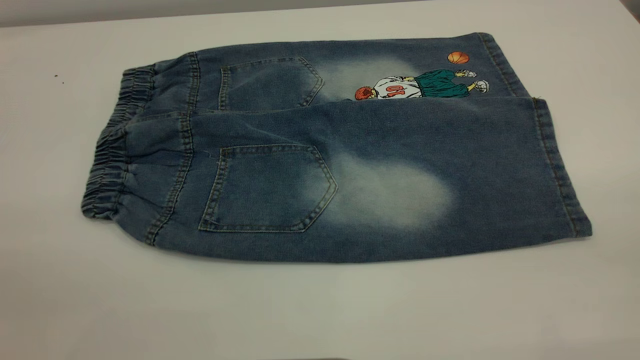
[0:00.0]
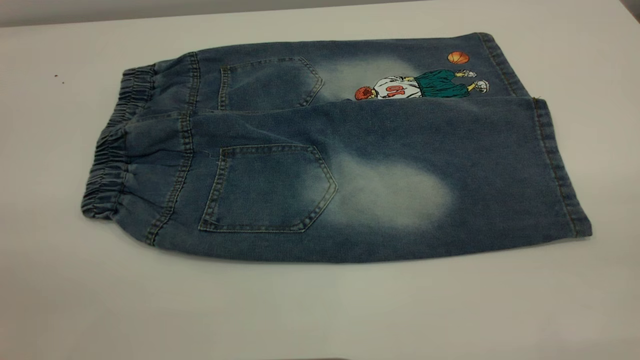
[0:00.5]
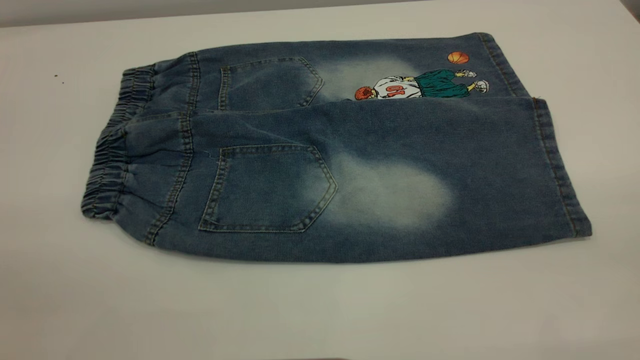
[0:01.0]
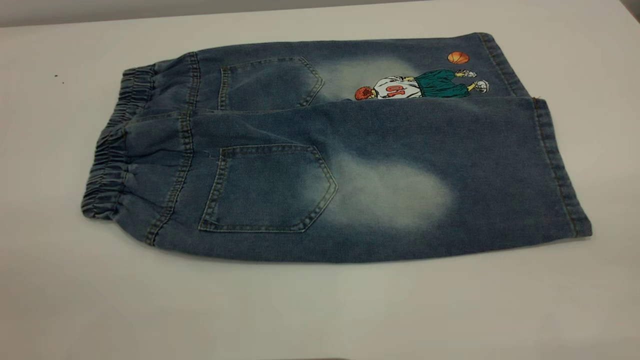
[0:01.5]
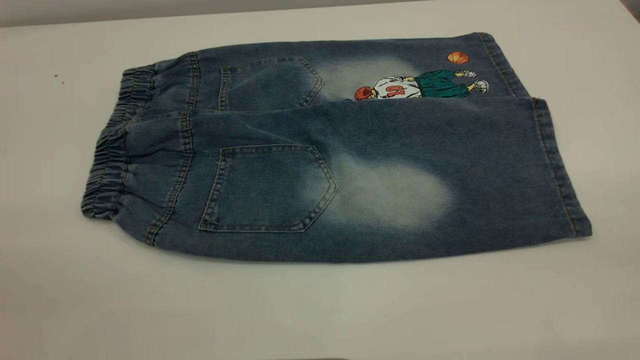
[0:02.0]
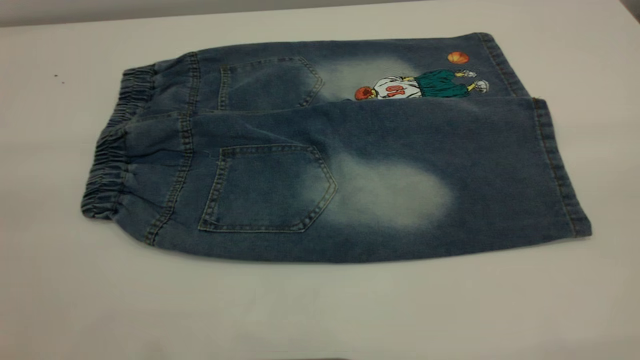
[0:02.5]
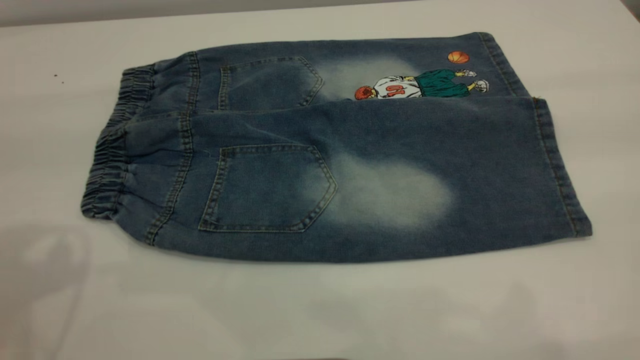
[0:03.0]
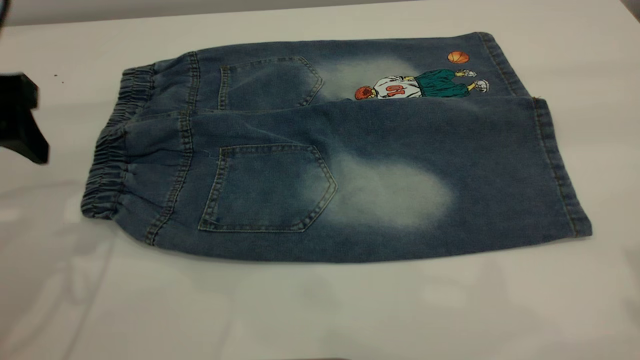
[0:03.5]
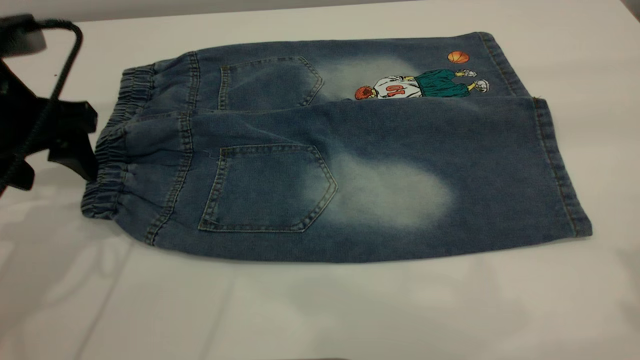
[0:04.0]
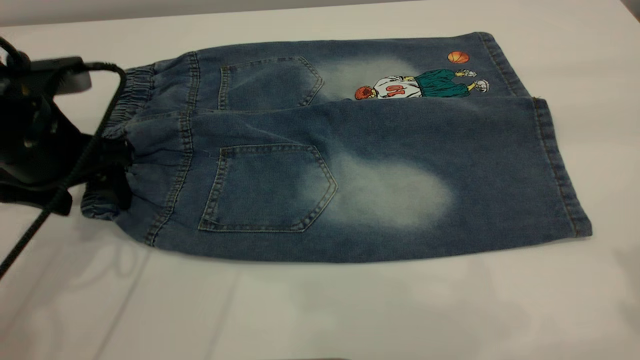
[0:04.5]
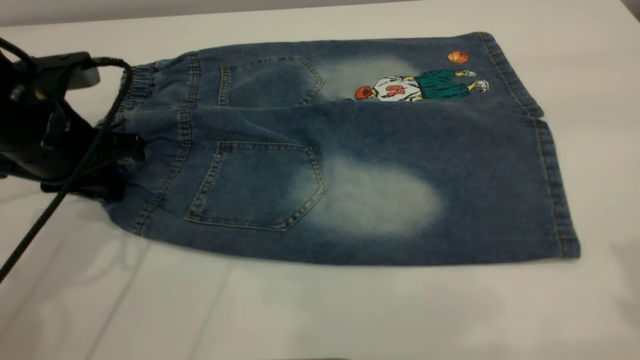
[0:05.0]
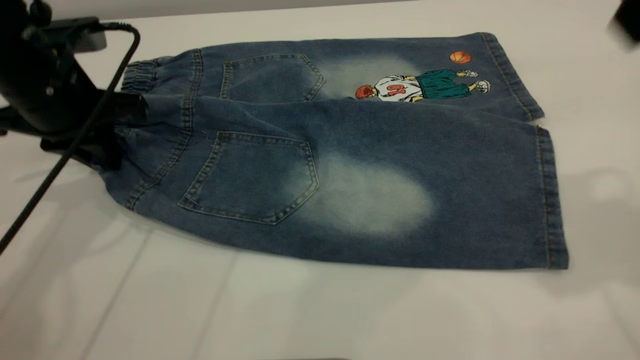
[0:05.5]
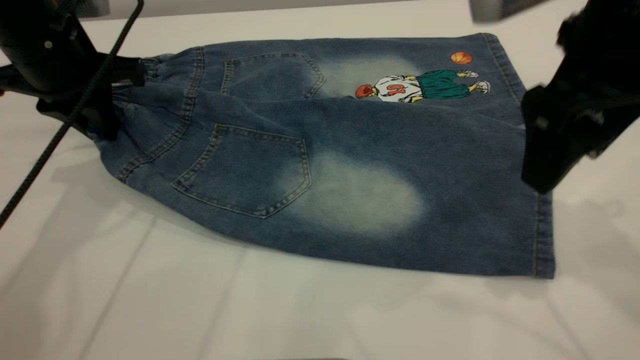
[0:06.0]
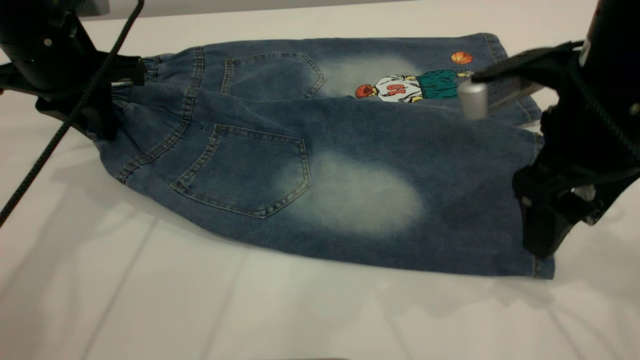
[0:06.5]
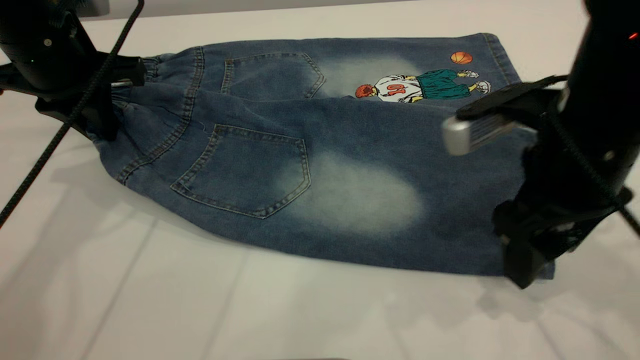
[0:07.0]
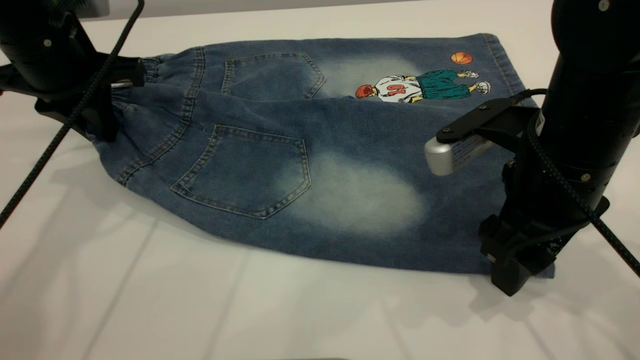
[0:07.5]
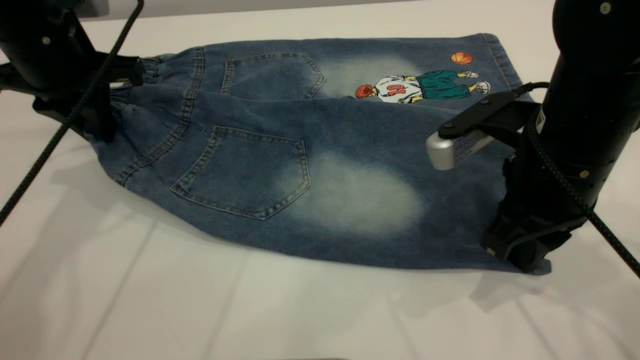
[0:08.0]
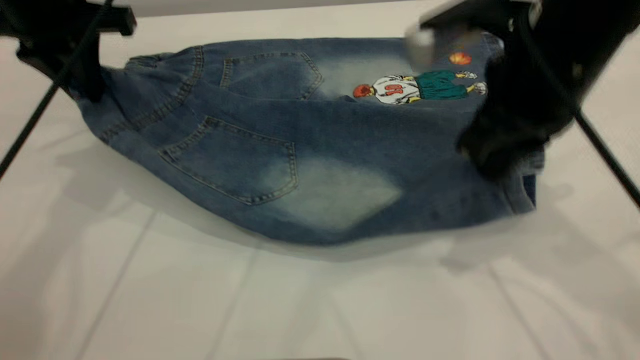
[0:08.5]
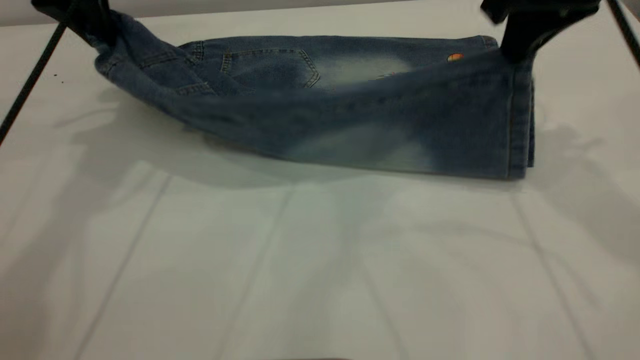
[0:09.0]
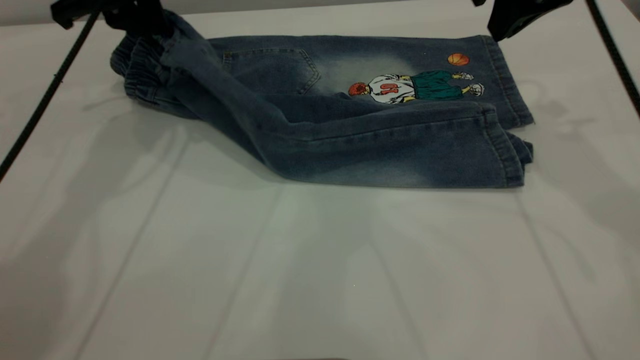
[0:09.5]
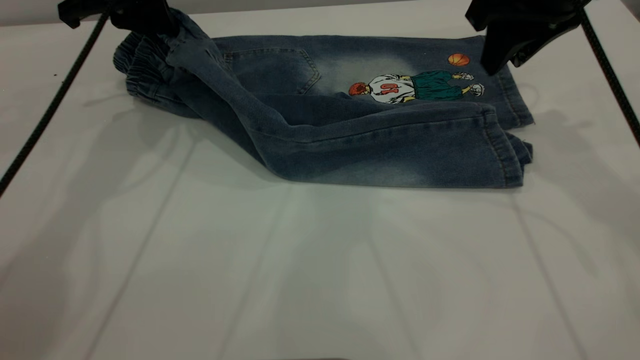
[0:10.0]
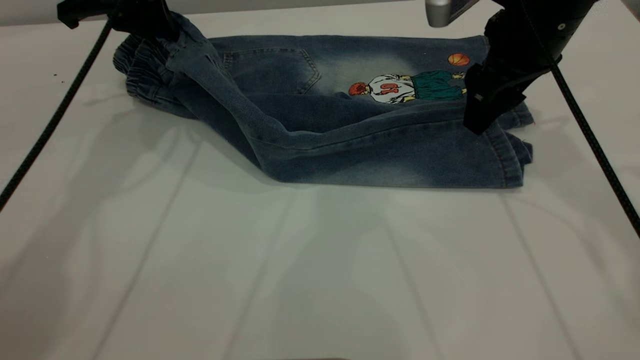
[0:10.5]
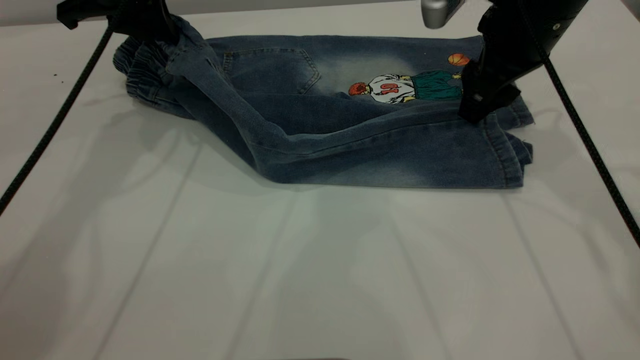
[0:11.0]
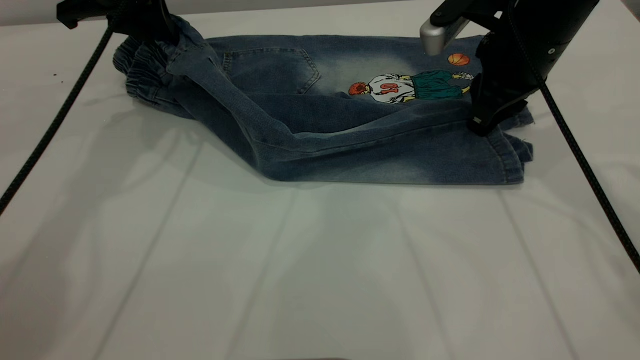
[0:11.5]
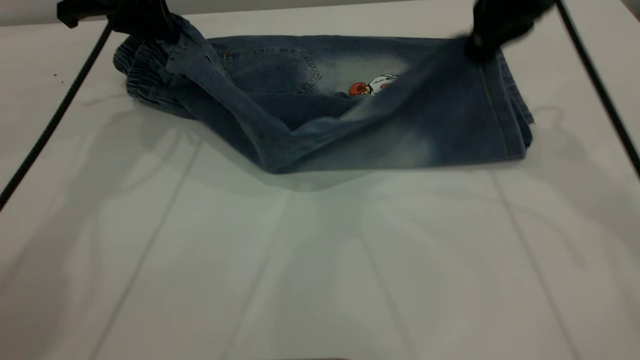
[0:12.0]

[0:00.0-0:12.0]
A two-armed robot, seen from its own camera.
0:00.0 to 0:02.0: The two grippers keep their place.
0:02.0 to 0:04.0: The left gripper moves forward and downward, some 35 cm.
0:04.0 to 0:06.0: The right gripper travels downward, forward and to the left by approximately 20 cm, while the left gripper goes roughly 10 cm forward, and closes its fingers.
0:06.0 to 0:08.0: The right gripper travels downward by about 10 cm, and closes up.
0:08.0 to 0:10.0: The right gripper shifts approximately 15 cm forward and upward, and opens its fingers. Meanwhile the left gripper heads forward, covering approximately 10 cm.
0:10.0 to 0:12.0: The right gripper moves some 5 cm downward and comes back, and closes up.

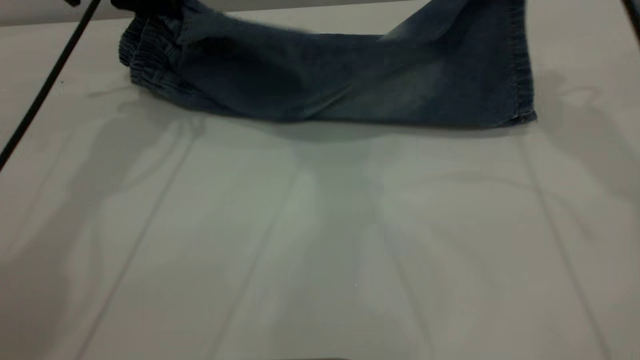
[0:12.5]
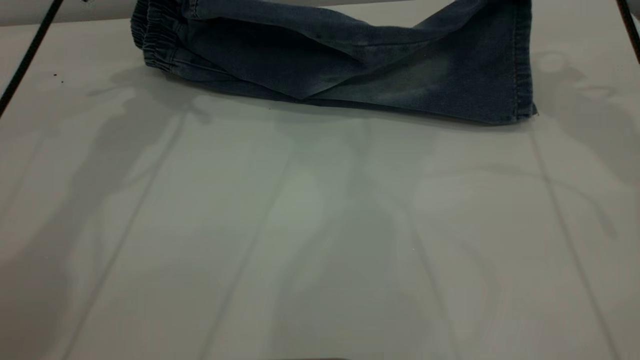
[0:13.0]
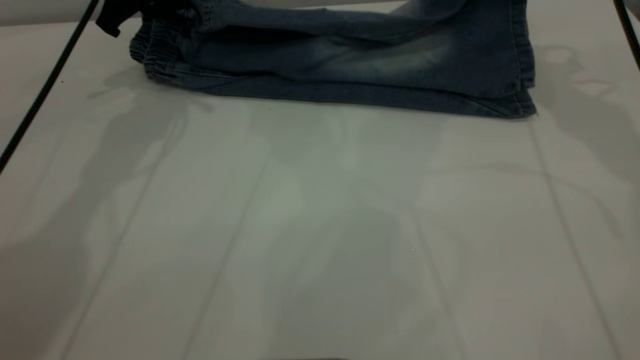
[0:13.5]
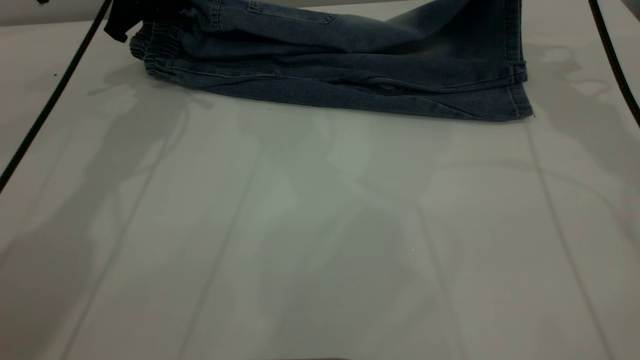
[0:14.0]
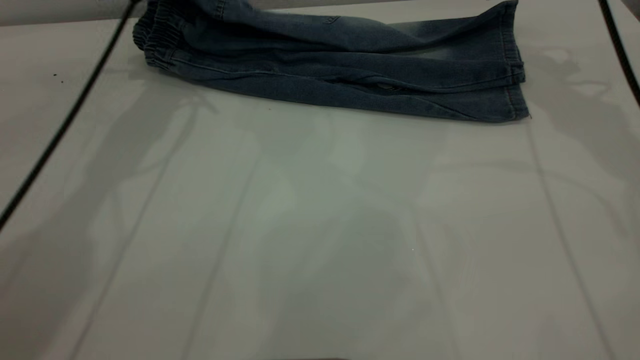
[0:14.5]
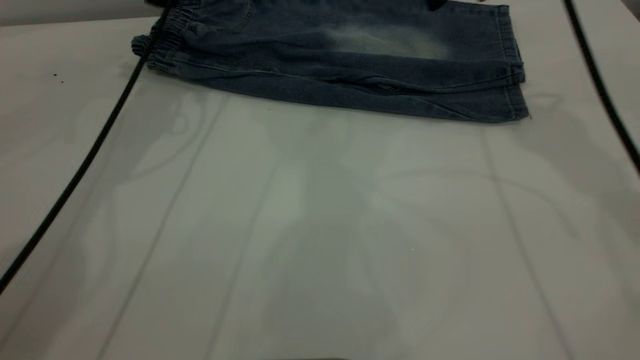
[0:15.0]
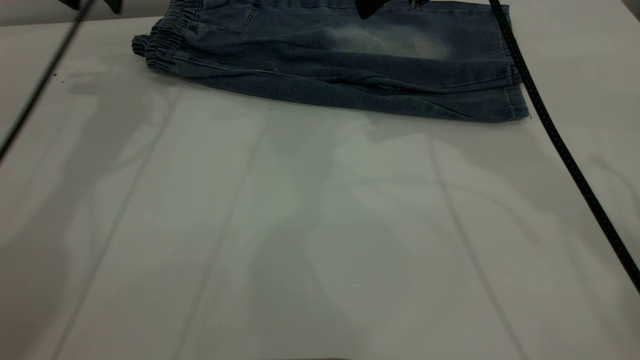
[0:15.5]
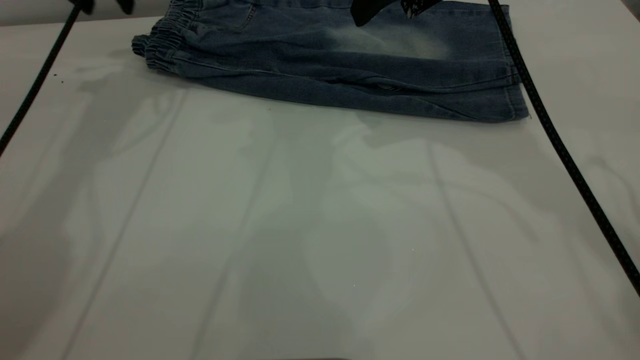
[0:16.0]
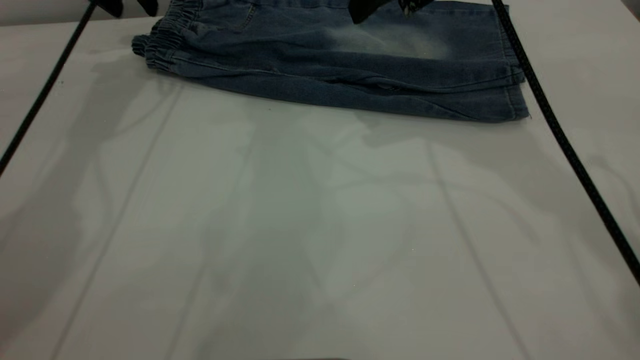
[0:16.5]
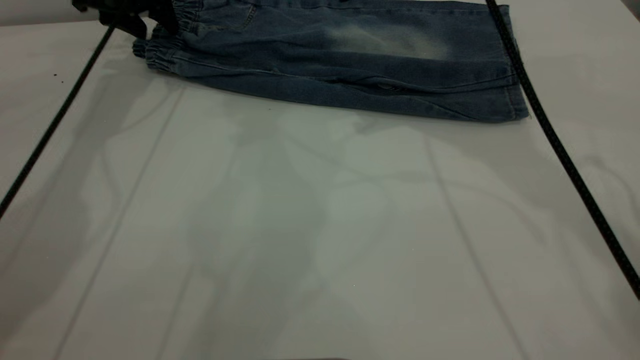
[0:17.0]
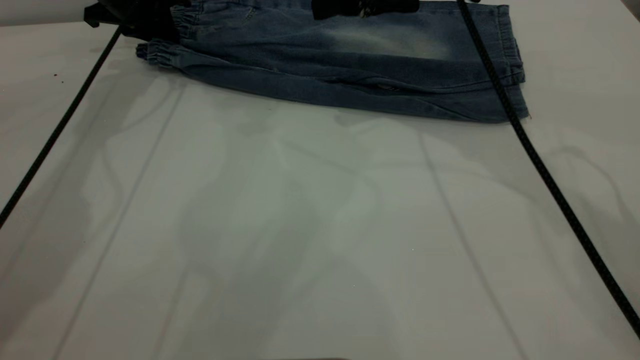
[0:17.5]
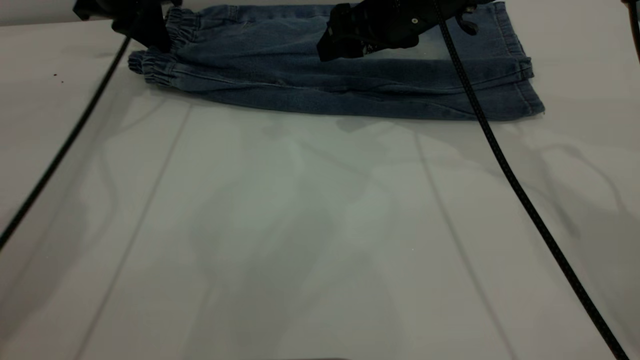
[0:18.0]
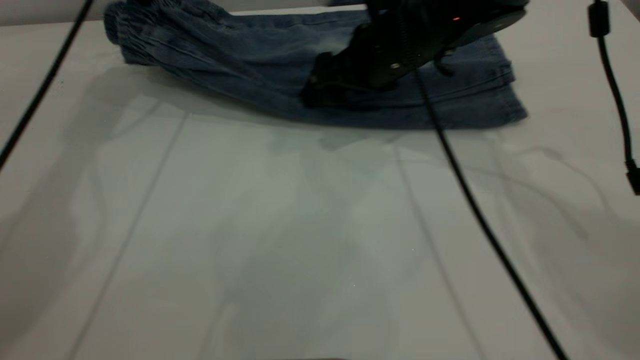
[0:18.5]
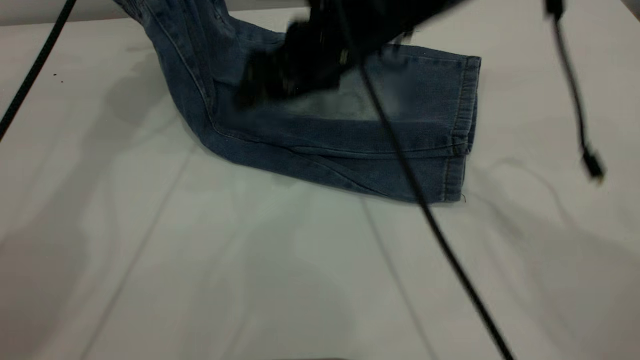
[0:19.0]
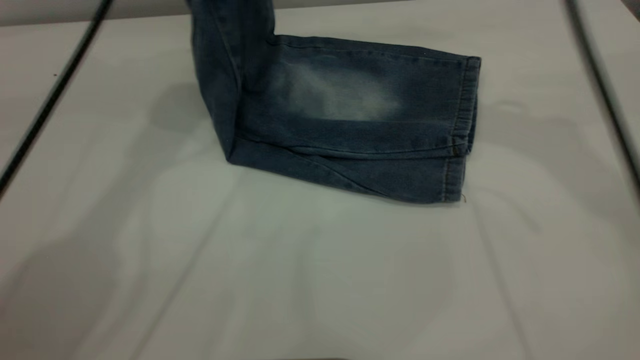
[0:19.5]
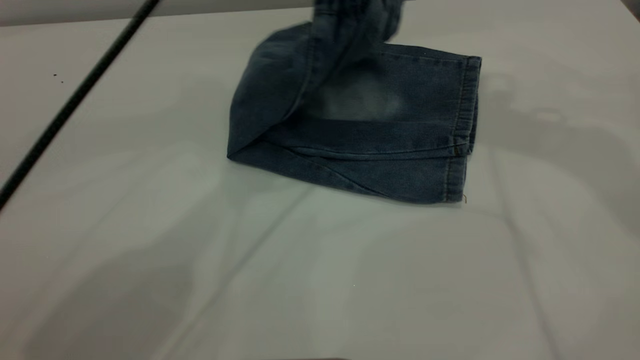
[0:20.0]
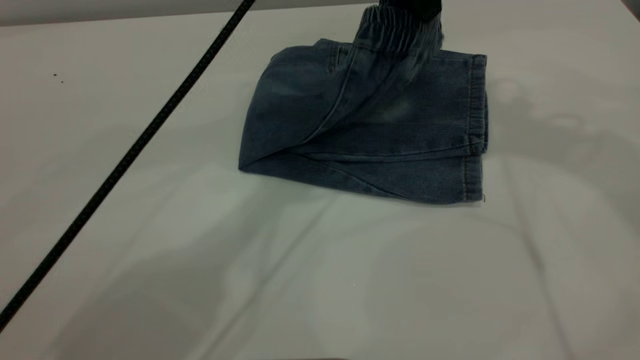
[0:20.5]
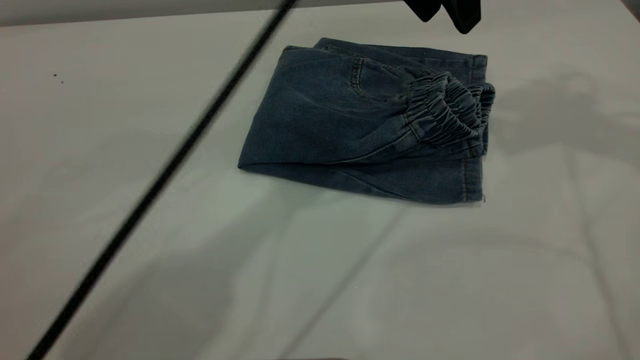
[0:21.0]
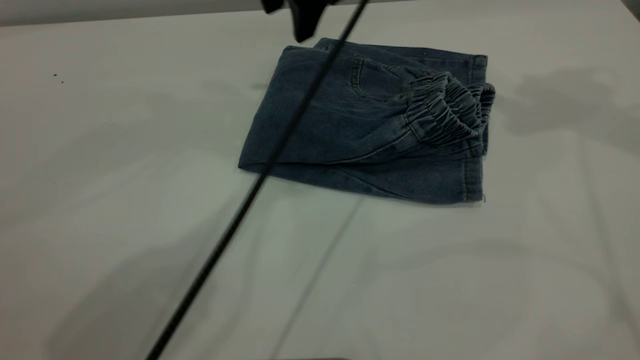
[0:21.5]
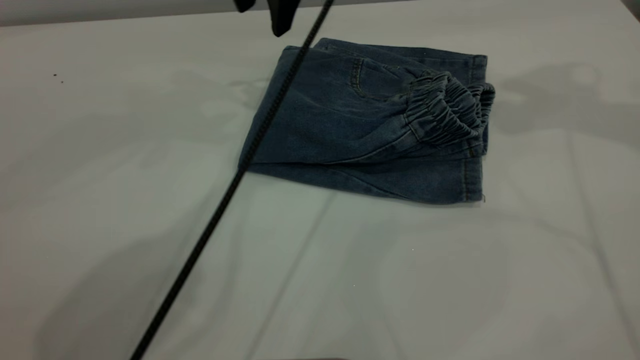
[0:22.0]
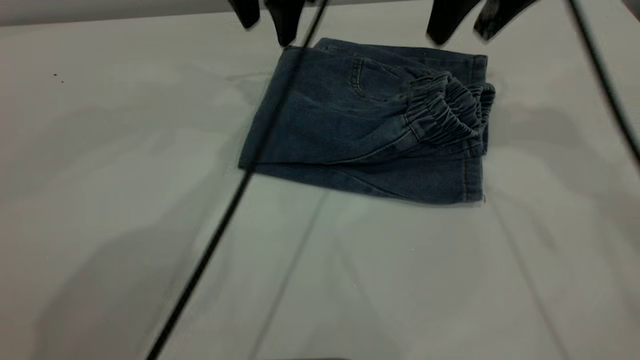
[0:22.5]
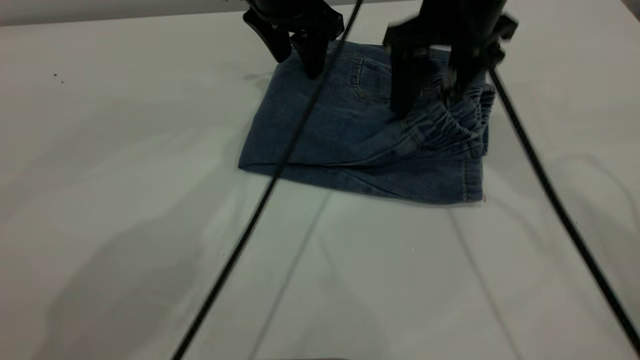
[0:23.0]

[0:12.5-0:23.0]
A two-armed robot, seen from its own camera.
Step, 0:12.5 to 0:15.5: Fold the bottom of the pants upward.
Step, 0:16.0 to 0:21.0: Fold the pants from left to right.
0:12.5 to 0:14.5: The left gripper ends up roughly 5 cm from where it was, and opens up. Meanwhile the right gripper opens its fingers.
0:14.5 to 0:16.5: The left gripper is displaced to the left by roughly 5 cm; the right gripper travels to the left by approximately 15 cm.
0:16.5 to 0:19.0: The left gripper heads upward and to the right, covering about 10 cm, and closes. Meanwhile the right gripper travels to the left and downward by approximately 10 cm.
0:19.0 to 0:21.0: The right gripper is displaced upward and to the right by roughly 30 cm. The left gripper goes about 30 cm to the right and backward, and opens up.
0:21.0 to 0:23.0: The left gripper is displaced to the left, downward and forward by approximately 15 cm; the right gripper moves downward and to the left, about 25 cm.
